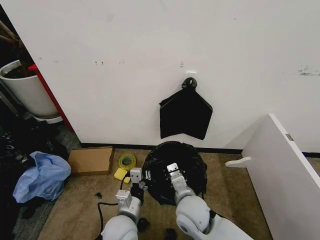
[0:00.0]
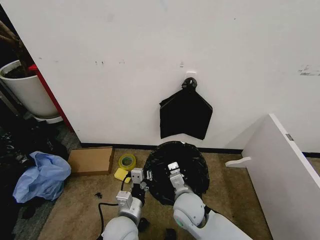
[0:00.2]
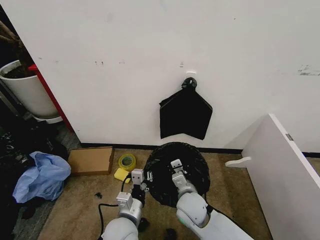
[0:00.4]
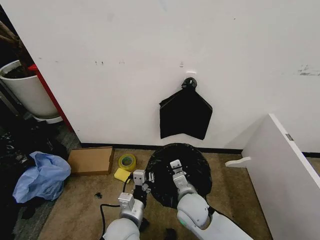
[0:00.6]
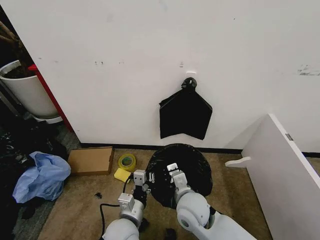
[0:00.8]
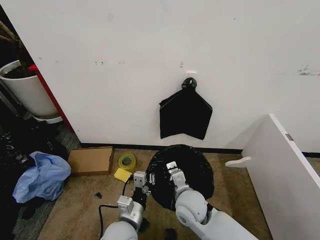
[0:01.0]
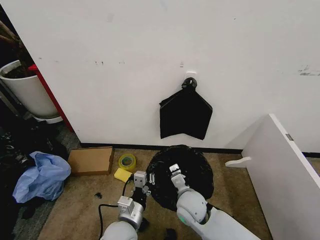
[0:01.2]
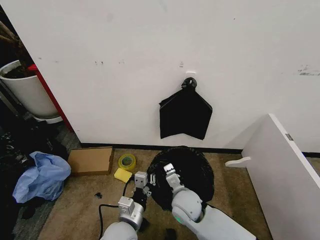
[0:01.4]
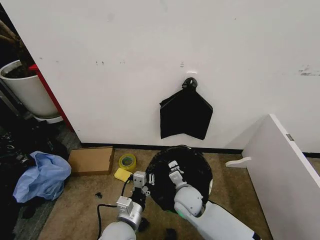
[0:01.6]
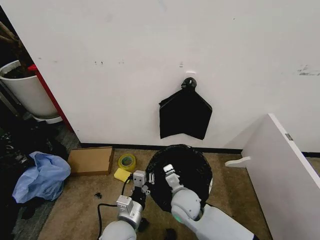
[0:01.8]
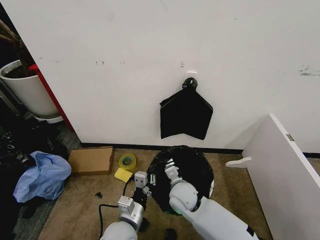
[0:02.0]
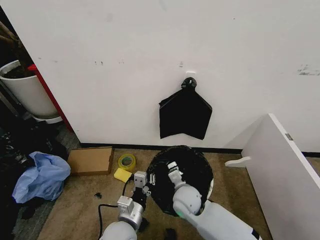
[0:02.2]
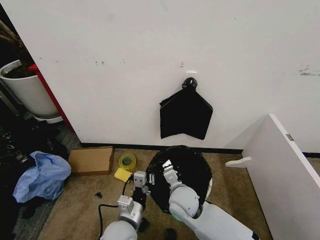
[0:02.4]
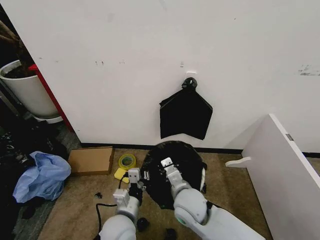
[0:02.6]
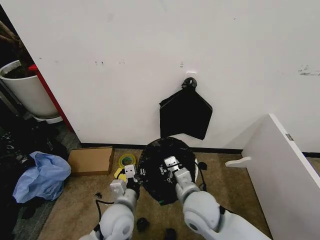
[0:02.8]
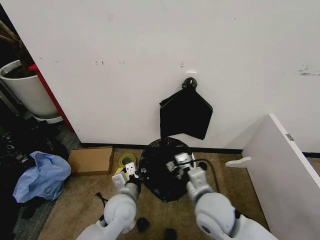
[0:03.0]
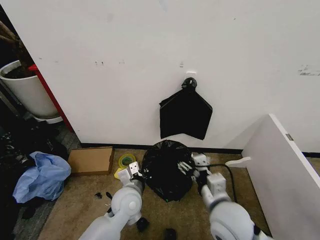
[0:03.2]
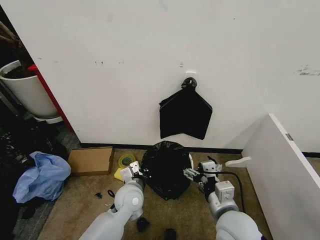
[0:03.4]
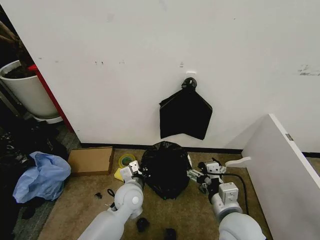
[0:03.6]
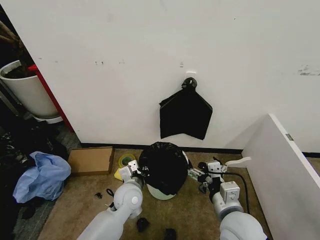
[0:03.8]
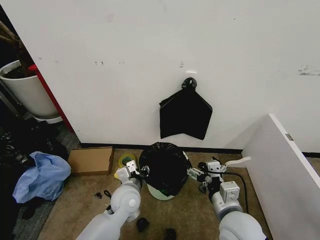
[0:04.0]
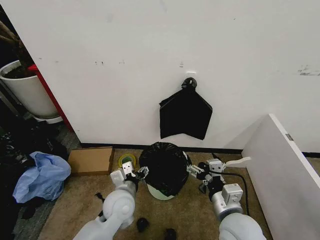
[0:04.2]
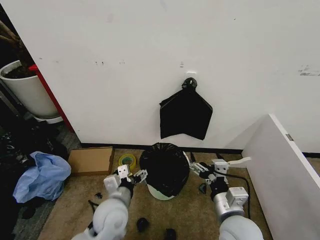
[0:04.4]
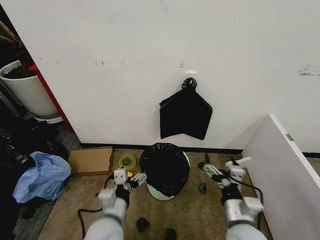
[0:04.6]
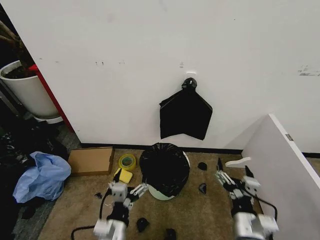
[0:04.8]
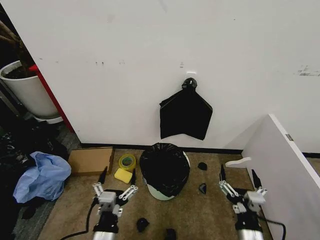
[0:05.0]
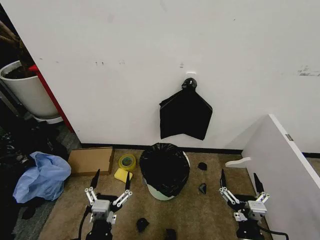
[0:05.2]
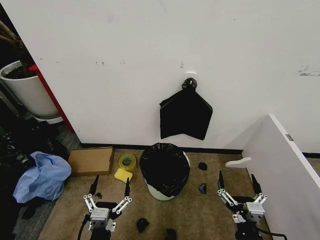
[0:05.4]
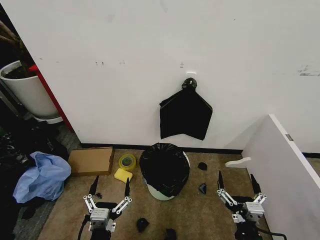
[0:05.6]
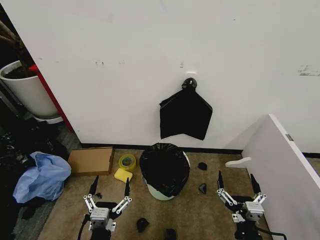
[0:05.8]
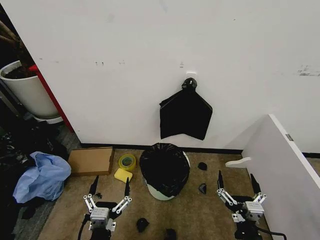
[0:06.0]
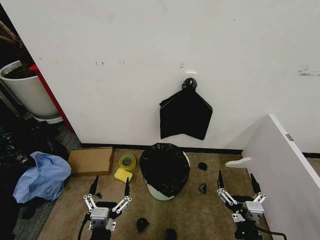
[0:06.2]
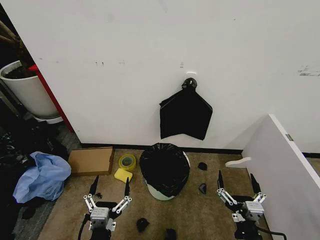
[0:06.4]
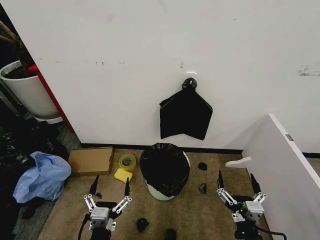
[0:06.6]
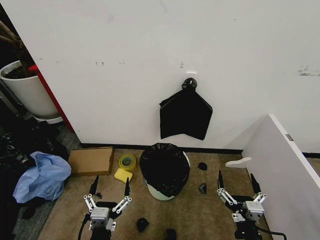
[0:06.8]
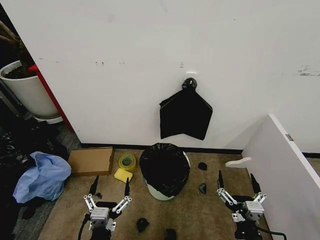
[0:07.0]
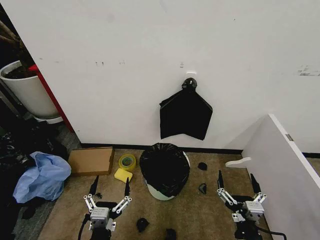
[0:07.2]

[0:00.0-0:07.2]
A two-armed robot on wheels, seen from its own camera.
Task of the whole recording: Place the garbage bag over the trash bin.
0:00.0 to 0:01.4: The right gripper goes up and down, about 5 cm each way, reversing 2 times.
0:01.4 to 0:02.8: The left gripper moves about 5 cm. The right gripper travels upward by about 10 cm.
0:02.8 to 0:04.4: The right gripper heads to the right and backward, covering approximately 10 cm, and opens its fingers; the left gripper opens its fingers.
0:04.4 to 0:05.8: The left gripper travels backward by roughly 15 cm; the right gripper shifts roughly 15 cm backward and downward.
0:05.8 to 0:07.2: Neither gripper changes place.
